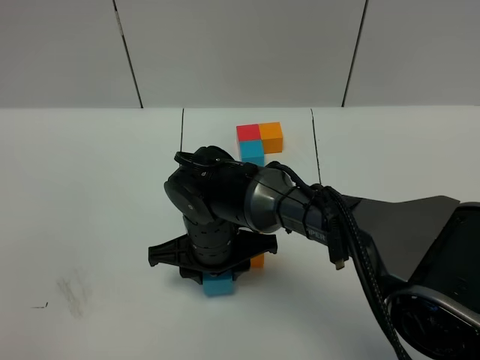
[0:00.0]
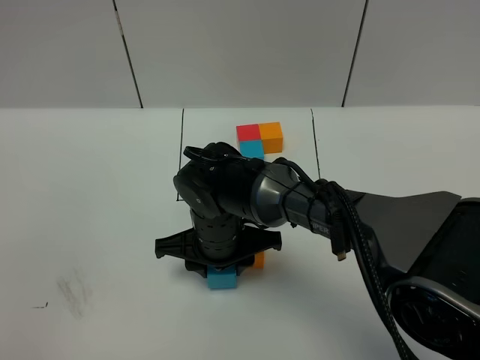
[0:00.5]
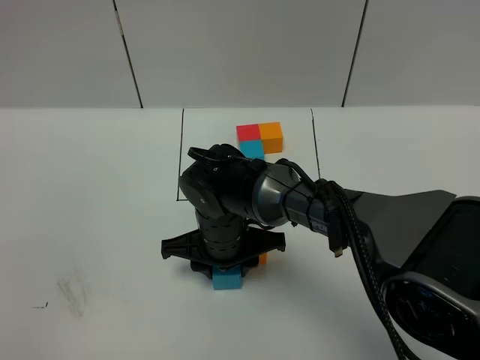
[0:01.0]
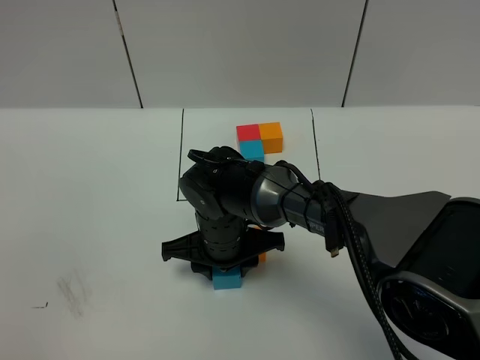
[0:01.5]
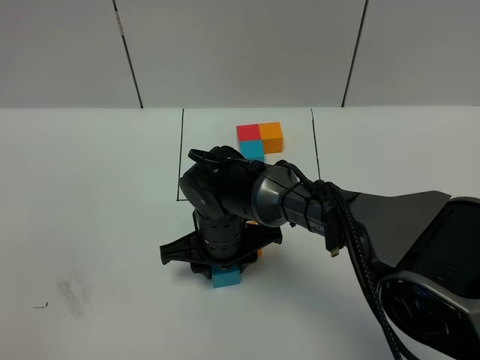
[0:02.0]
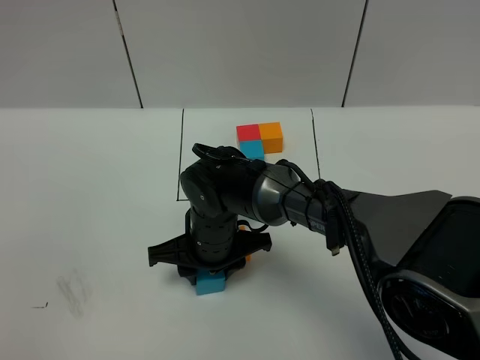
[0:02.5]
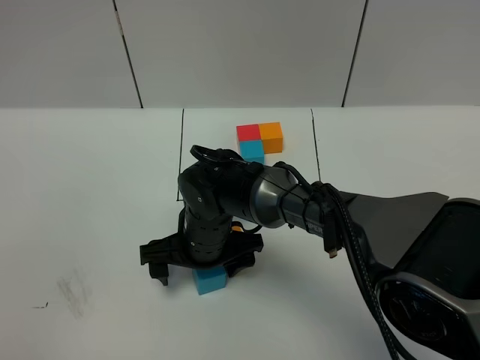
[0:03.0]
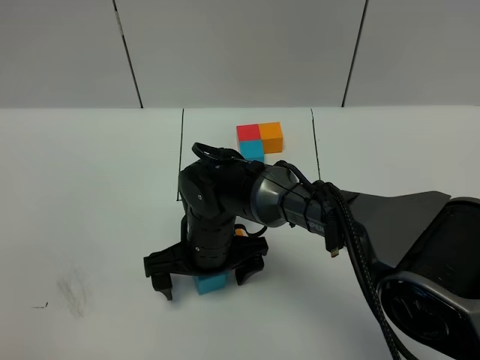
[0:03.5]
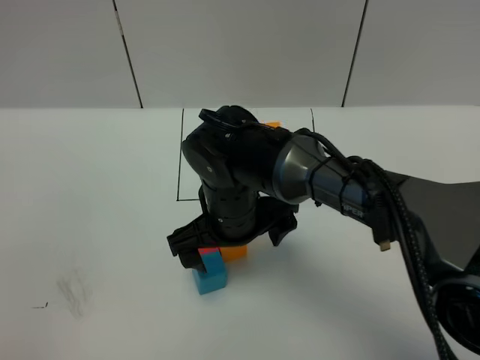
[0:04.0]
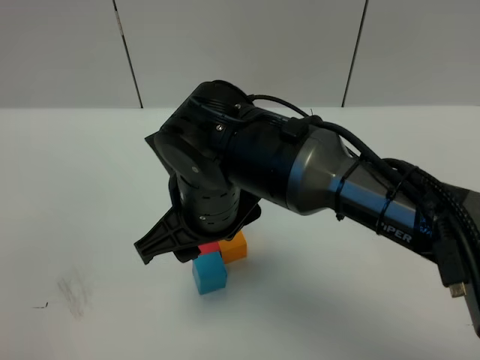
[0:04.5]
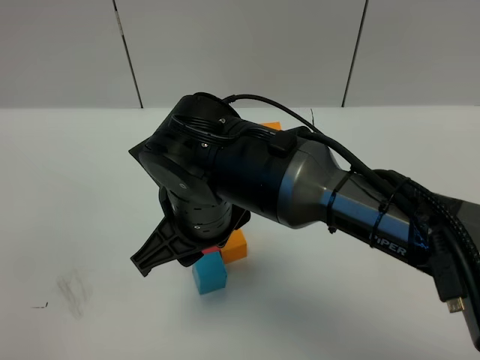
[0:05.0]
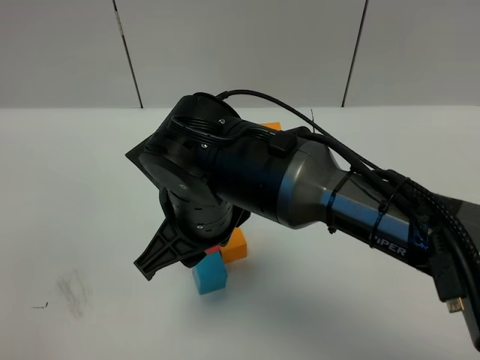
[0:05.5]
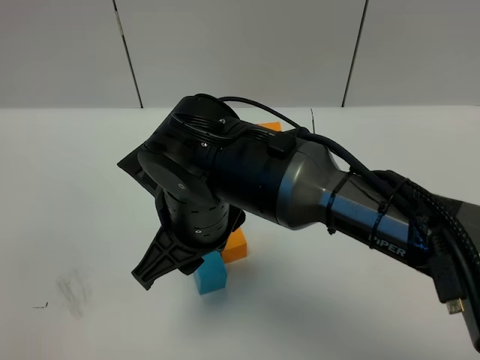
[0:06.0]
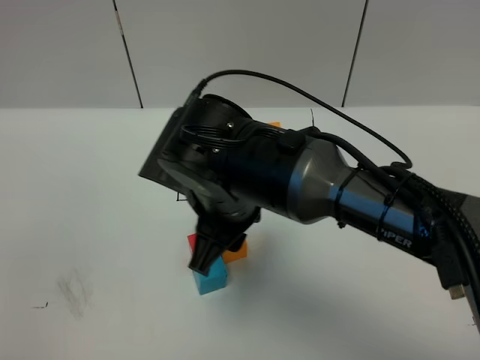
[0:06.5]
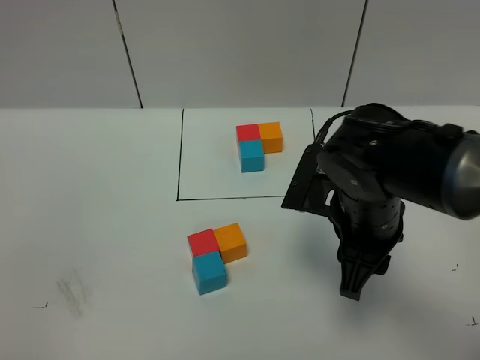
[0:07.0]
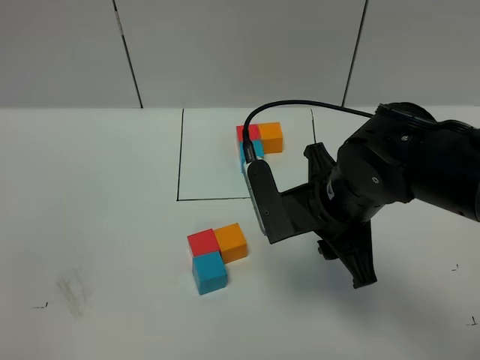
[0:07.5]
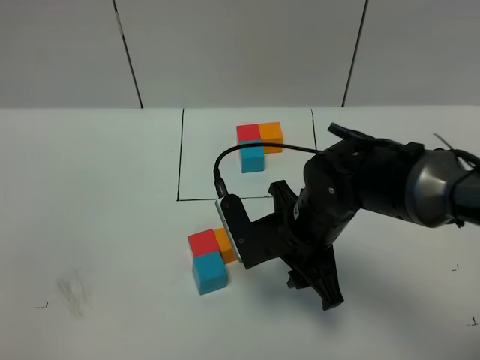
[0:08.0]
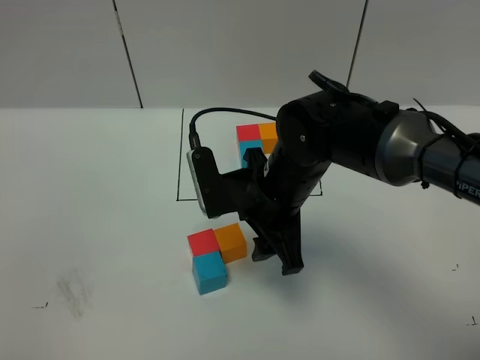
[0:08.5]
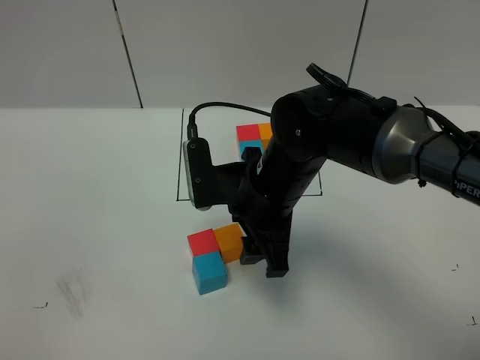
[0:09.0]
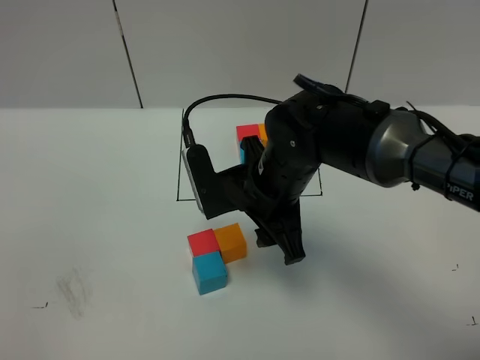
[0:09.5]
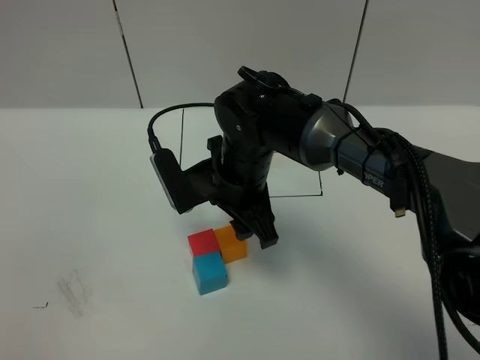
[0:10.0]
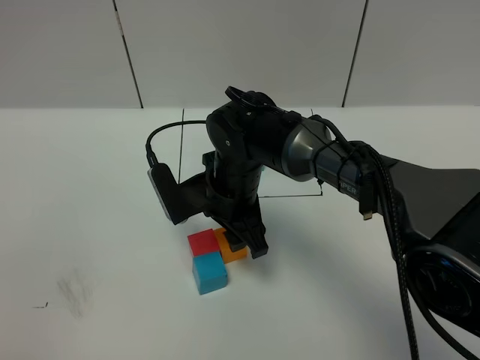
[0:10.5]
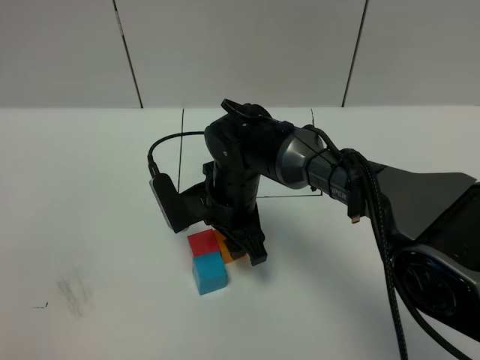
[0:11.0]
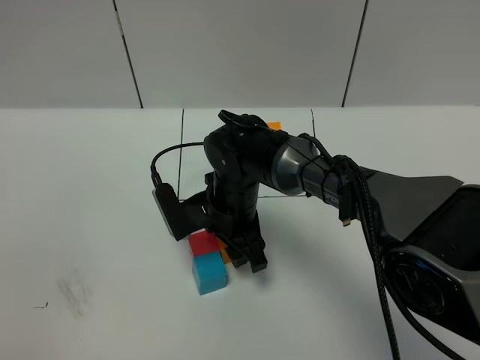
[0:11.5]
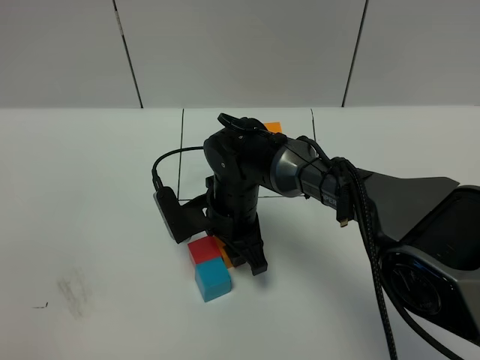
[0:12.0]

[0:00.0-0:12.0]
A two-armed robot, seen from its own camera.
Task of the whole recording: According to the building block template in front, assemble the scattered blocks together.
Step, 0:00.0 to 0:05.0: Put the blue cube in the front of the red cube.
0:00.0 to 0:02.0: The grippers make only small movements.
0:02.0 to 0:04.0: The right gripper moves upward, some 5 cm, and opens its fingers.
0:04.0 to 0:06.0: The right gripper goes about 10 cm upward and backward, and closes.
0:06.0 to 0:08.0: The right gripper travels to the right and downward by about 15 cm.
0:08.0 to 0:10.0: The right gripper moves to the left and forward, about 10 cm.
0:10.0 to 0:12.0: The right gripper goes some 10 cm downward.

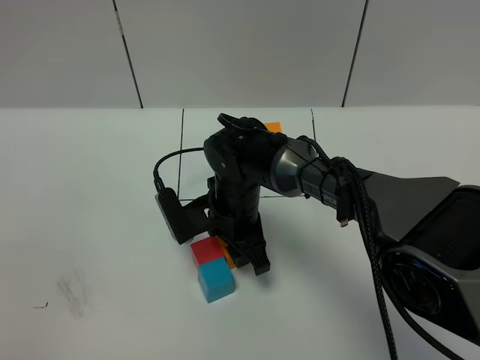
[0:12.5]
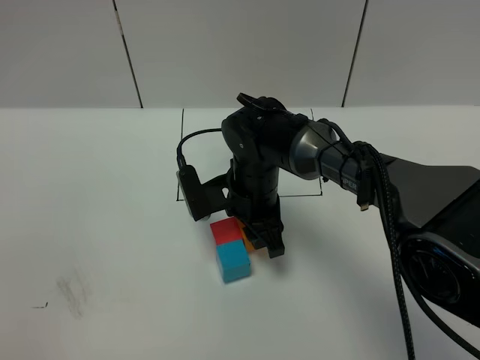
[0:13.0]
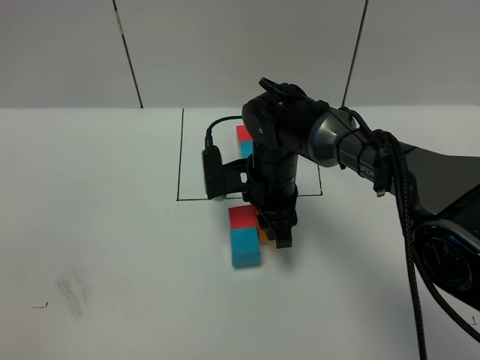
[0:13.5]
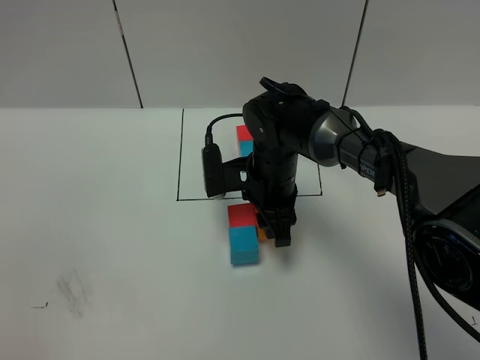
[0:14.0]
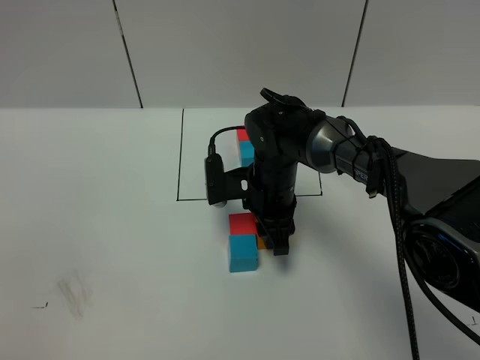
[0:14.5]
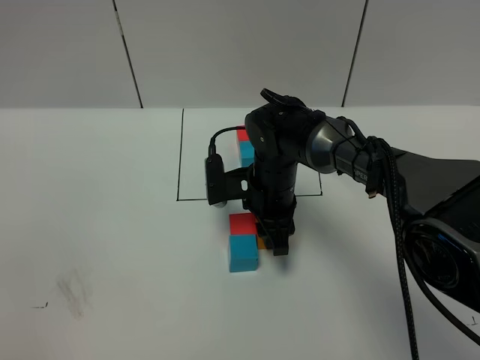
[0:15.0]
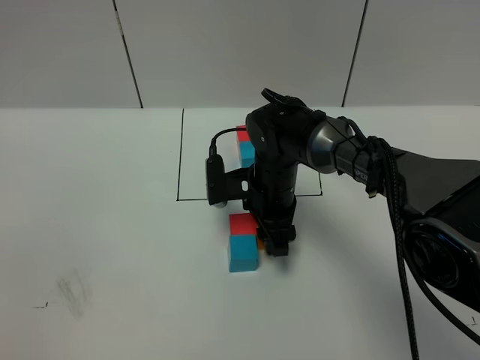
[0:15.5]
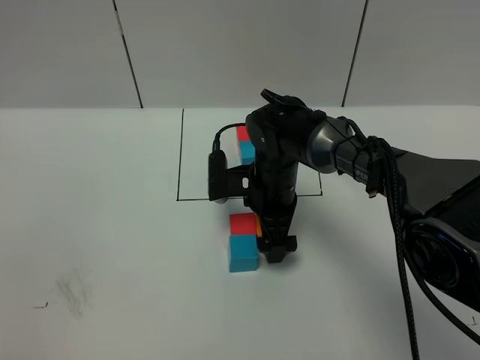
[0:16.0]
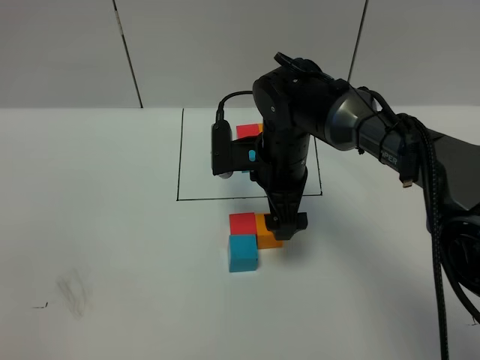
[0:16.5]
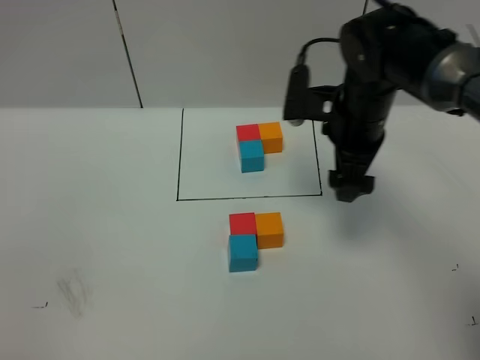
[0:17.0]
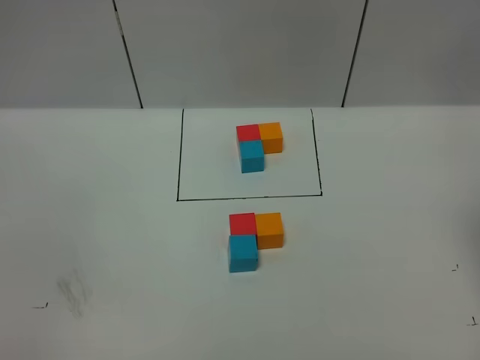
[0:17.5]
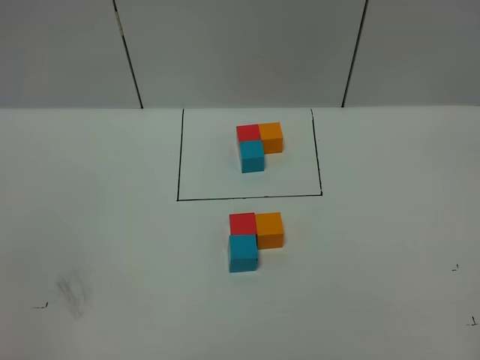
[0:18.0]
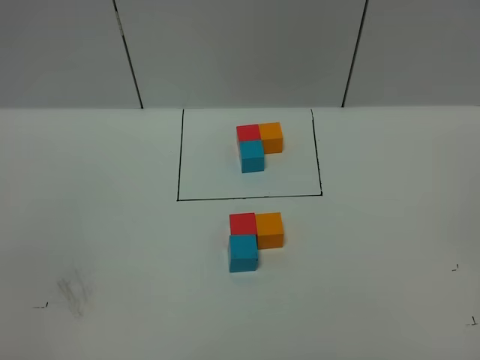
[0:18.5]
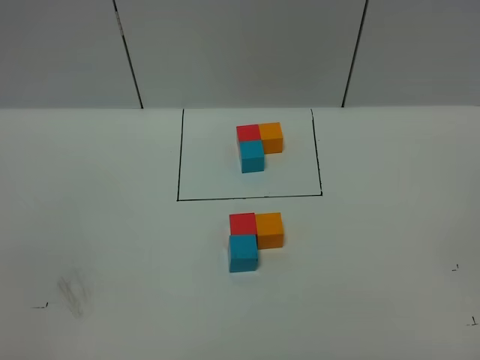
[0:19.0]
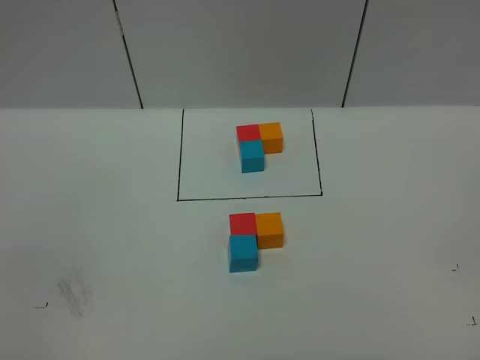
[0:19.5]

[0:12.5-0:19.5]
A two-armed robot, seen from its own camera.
Task of the whole recording: According to the building block template in front, assemble the scattered blocks together.
Step, 0:12.5 to 0:16.0: Adjust the pose of the building blocks.
0:12.5 to 0:14.5: The right gripper ends up approximately 5 cm from where it was.
0:14.5 to 0:16.0: The right gripper opens up.
0:16.0 to 0:17.5: The right gripper goes roughly 40 cm to the right, upward and backward.
